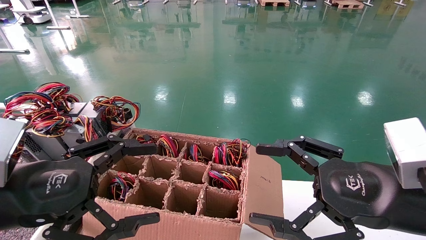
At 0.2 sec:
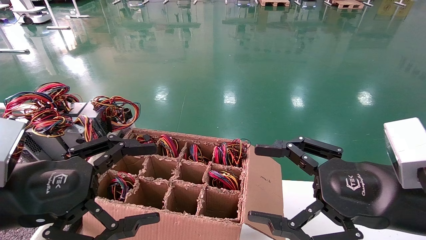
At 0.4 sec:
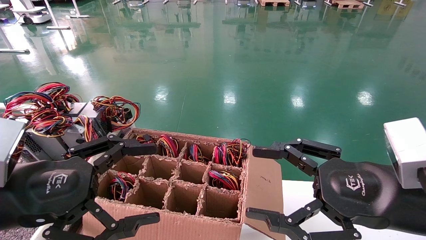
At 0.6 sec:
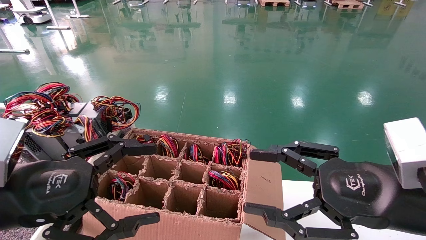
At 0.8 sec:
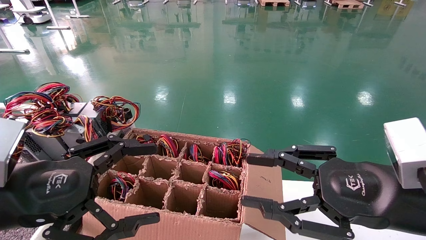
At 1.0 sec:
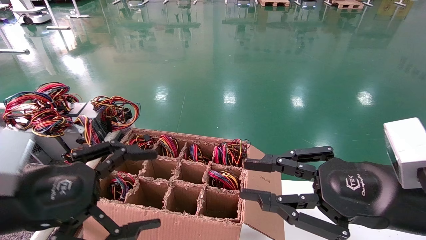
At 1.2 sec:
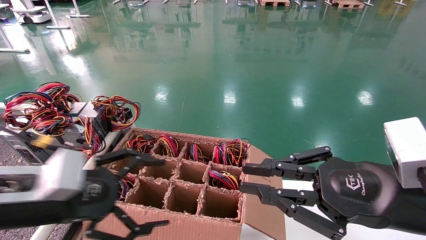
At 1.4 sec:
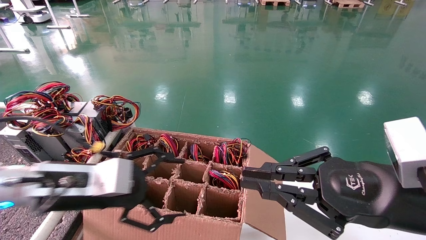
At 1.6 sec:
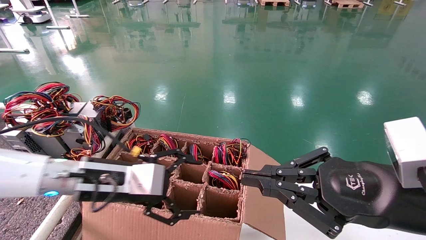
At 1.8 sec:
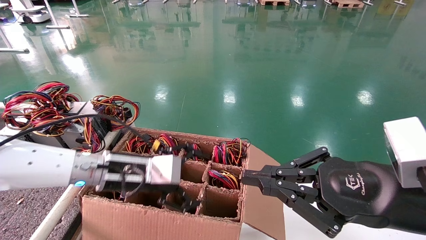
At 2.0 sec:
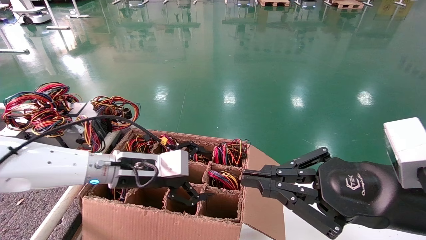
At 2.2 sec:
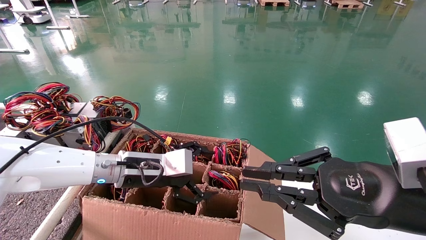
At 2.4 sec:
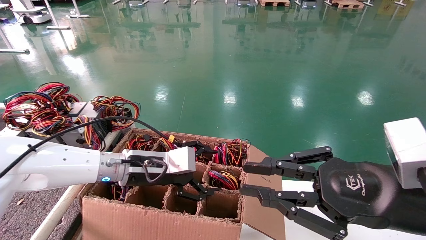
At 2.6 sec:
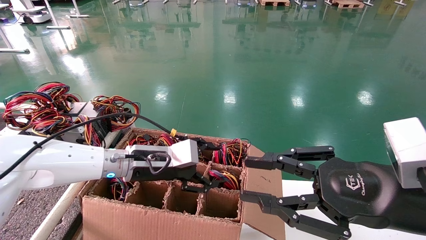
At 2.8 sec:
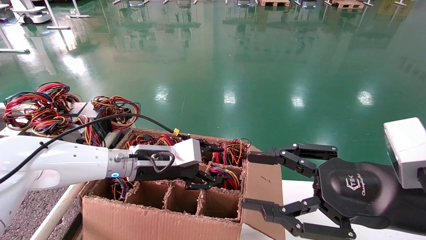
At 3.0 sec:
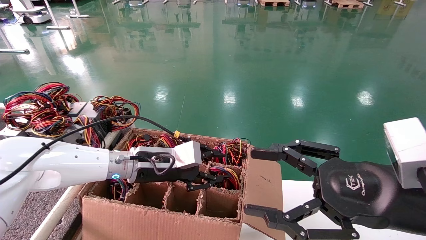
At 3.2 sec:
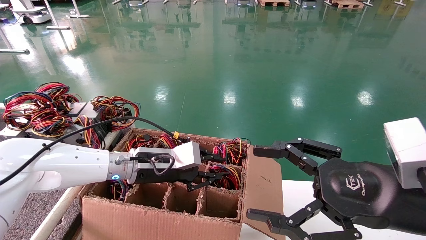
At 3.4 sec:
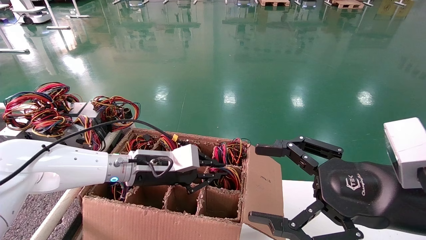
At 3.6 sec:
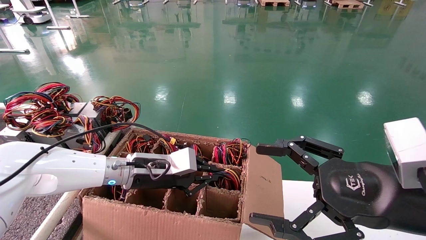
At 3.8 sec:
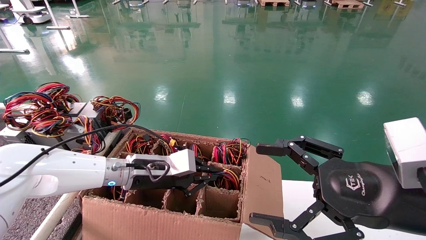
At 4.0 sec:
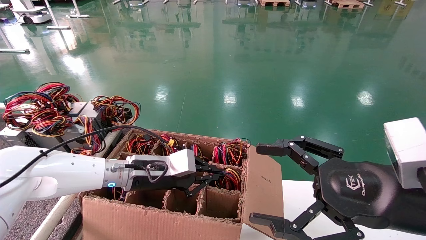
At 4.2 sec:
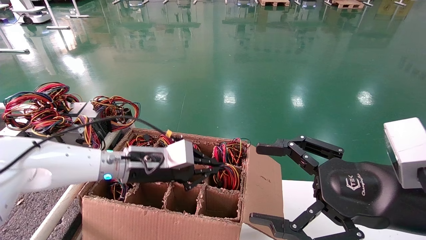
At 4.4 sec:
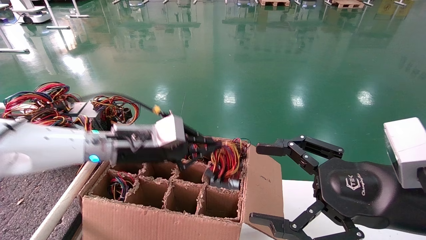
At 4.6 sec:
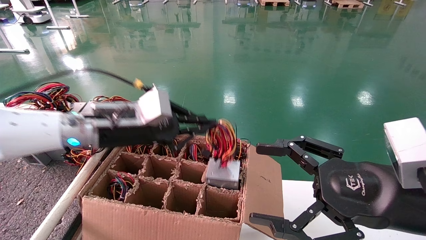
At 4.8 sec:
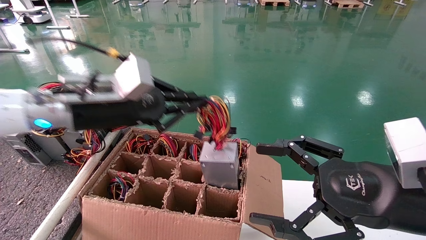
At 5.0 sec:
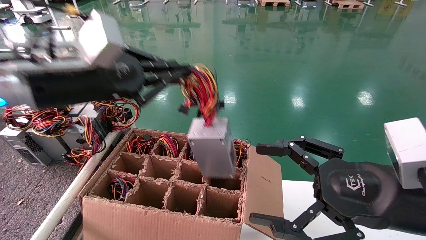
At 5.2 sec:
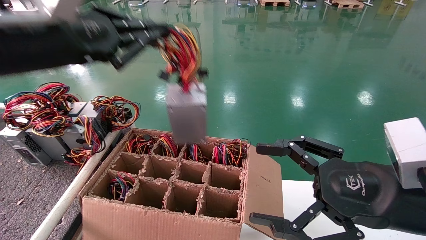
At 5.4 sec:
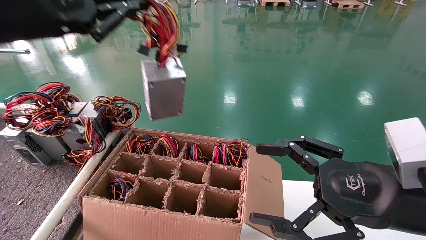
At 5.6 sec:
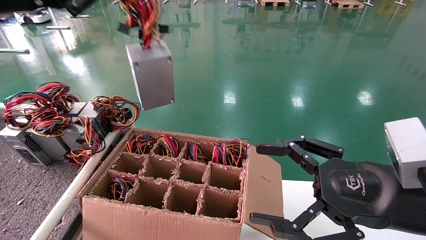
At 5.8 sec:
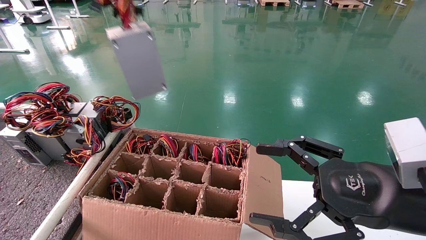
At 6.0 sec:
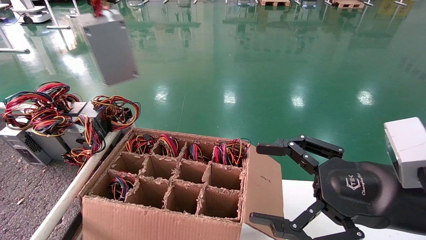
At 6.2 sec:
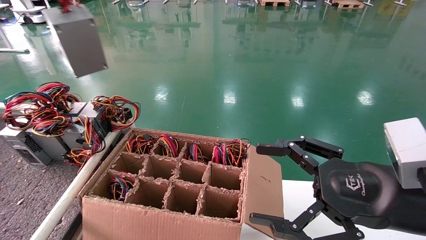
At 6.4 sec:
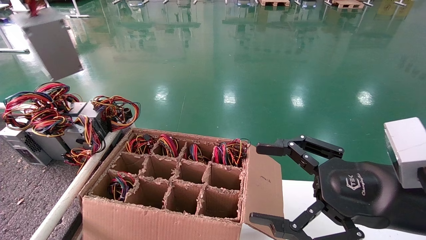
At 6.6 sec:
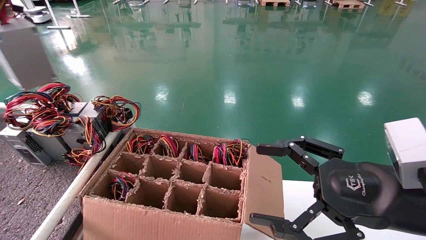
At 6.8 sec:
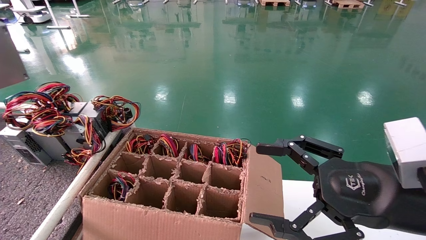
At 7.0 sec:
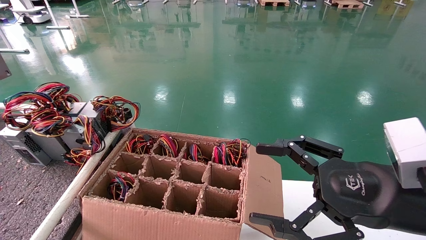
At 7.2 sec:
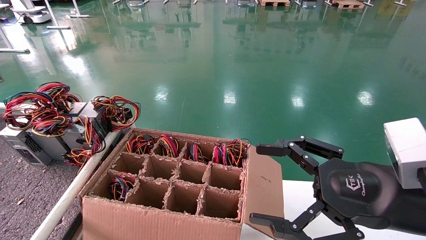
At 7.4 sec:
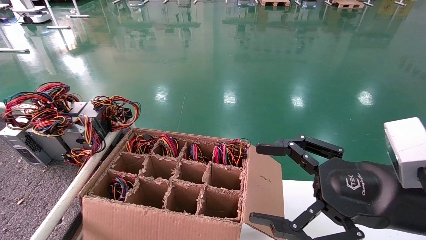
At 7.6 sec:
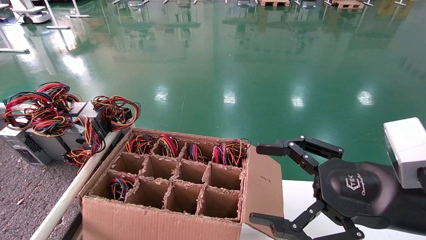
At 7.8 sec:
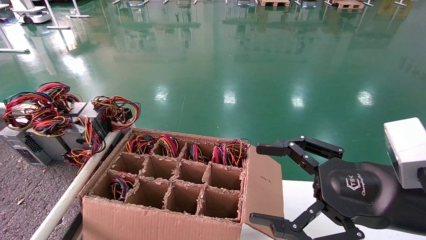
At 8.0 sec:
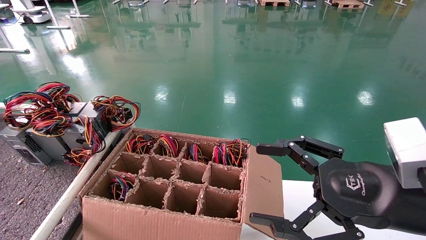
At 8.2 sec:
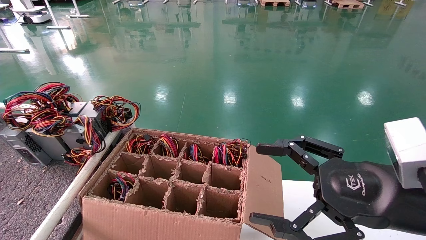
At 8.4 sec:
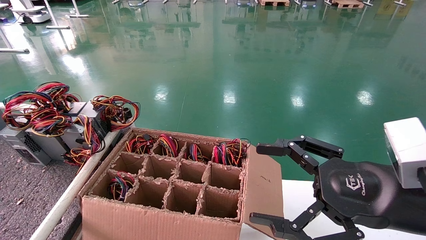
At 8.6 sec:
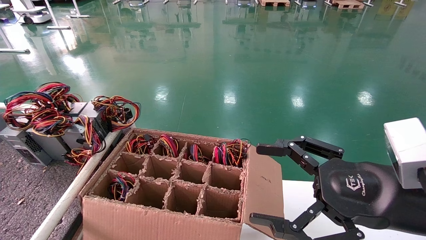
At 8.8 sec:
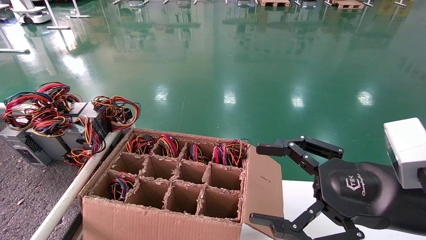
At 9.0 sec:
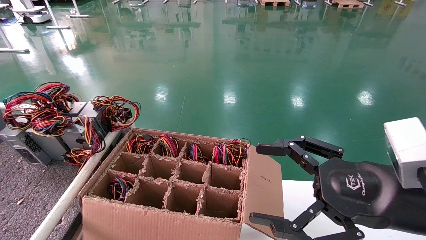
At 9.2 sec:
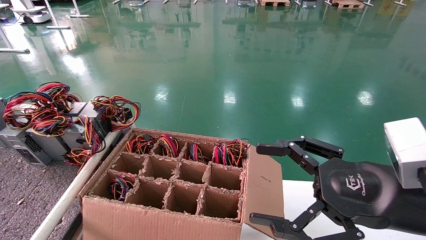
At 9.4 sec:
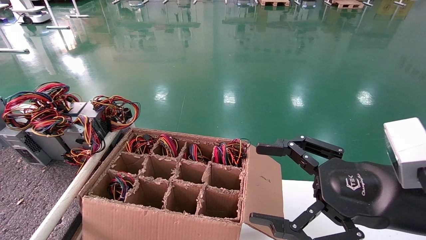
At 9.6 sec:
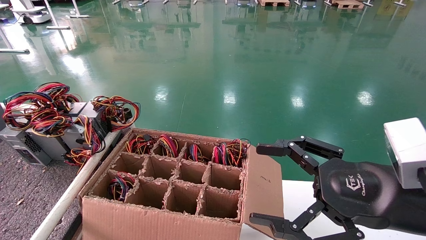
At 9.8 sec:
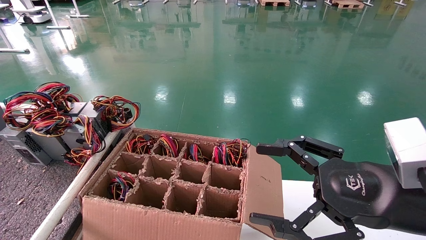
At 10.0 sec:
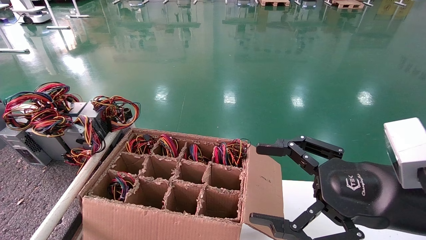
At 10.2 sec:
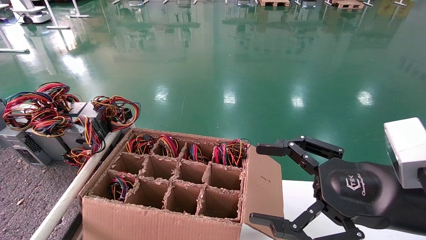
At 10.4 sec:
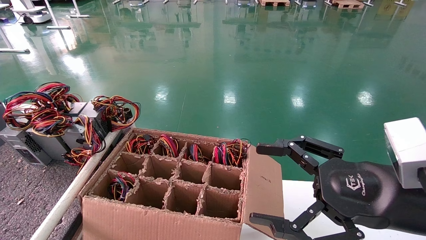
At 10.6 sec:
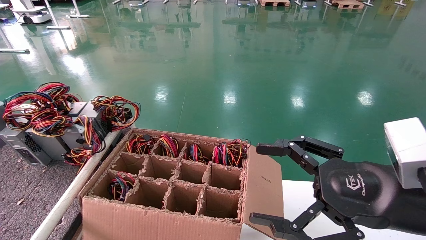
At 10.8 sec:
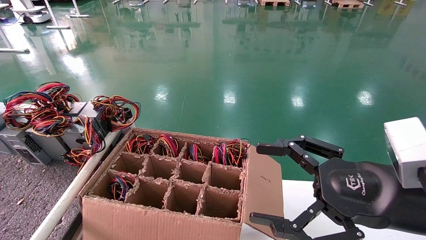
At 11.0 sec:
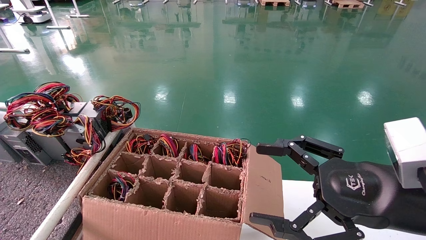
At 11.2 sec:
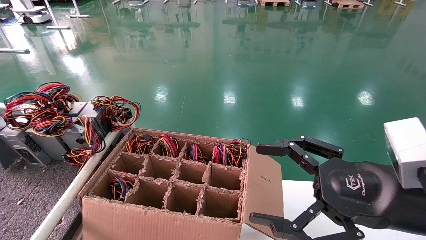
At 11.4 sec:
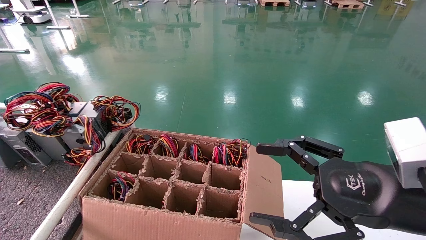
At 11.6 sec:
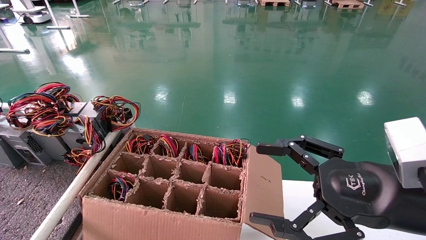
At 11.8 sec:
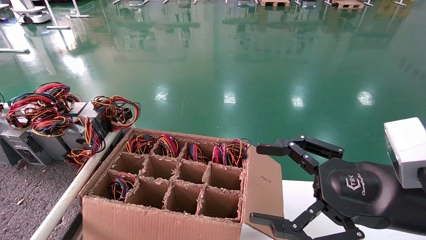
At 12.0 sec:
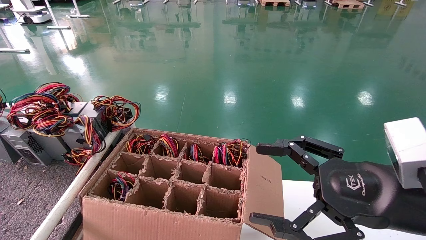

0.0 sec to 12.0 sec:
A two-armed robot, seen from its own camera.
Step, 1.4 sec to 3.8 sec: Grab and lift the power supply from the large box.
0.0 sec to 1.6 sec: The right gripper closes its fingers. The left gripper is displaced forward and to the right by roughly 15 cm.
1.6 sec to 3.0 sec: The right gripper opens up; the left gripper moves forward and to the right, approximately 10 cm, and closes.
3.0 sec to 4.4 sec: The right gripper opens up. The left gripper goes approximately 5 cm upward, and closes.
4.4 sec to 6.0 sec: The left gripper shifts roughly 35 cm upward, to the left and backward.
6.0 sec to 7.6 sec: The left gripper shifts some 25 cm to the left.
9.0 sec to 10.4 sec: Both grippers stay put.
10.4 sec to 12.0 sec: The grippers move only a little.

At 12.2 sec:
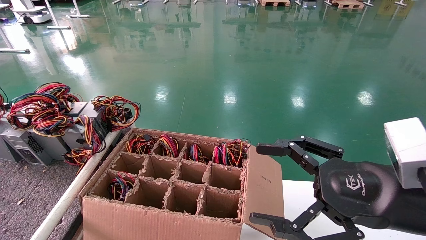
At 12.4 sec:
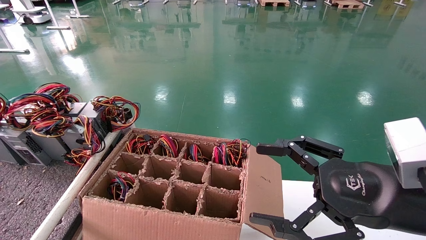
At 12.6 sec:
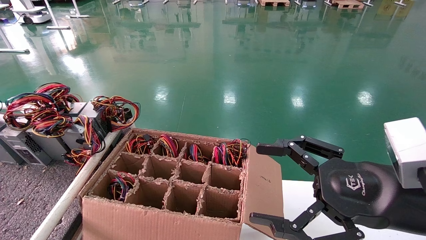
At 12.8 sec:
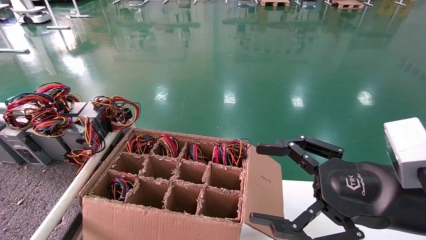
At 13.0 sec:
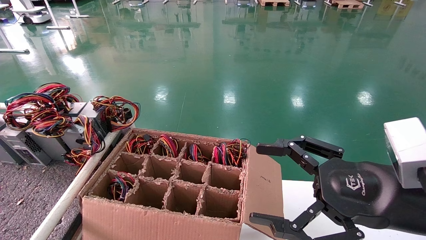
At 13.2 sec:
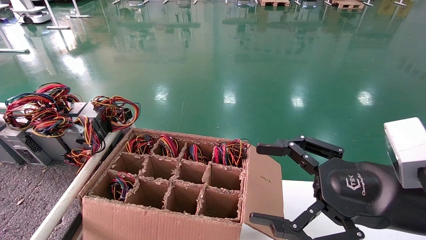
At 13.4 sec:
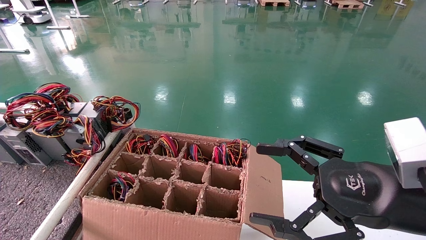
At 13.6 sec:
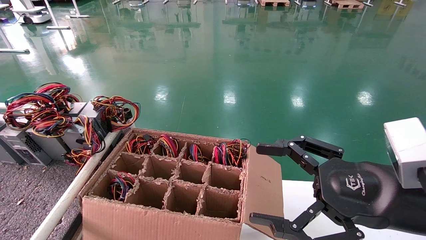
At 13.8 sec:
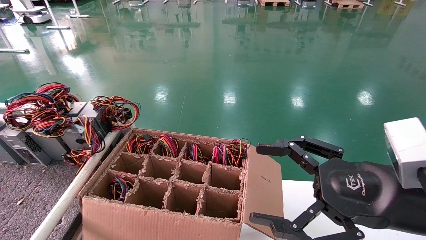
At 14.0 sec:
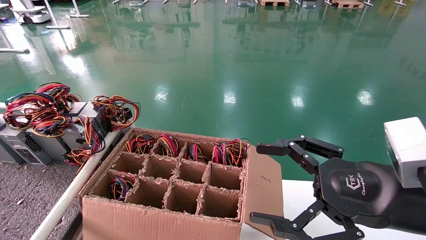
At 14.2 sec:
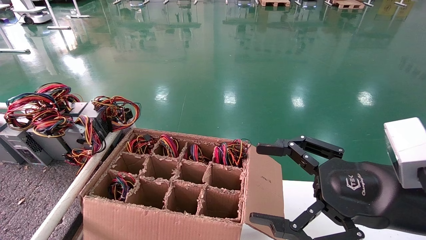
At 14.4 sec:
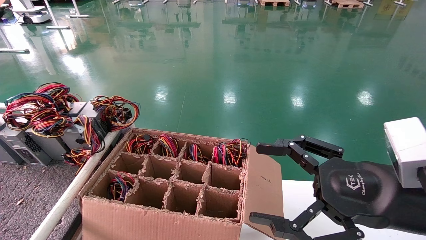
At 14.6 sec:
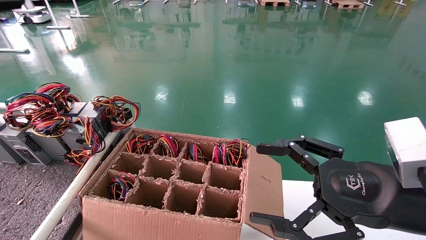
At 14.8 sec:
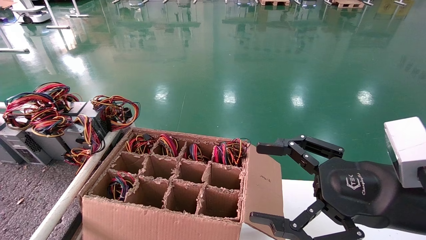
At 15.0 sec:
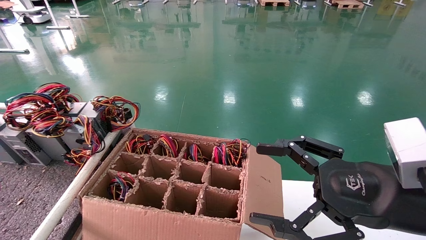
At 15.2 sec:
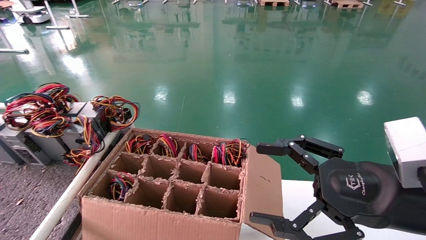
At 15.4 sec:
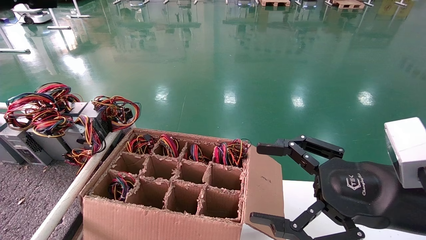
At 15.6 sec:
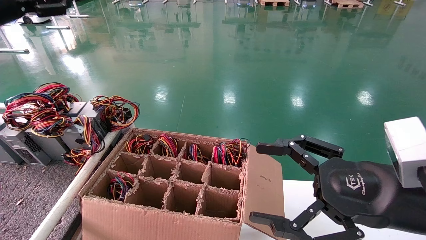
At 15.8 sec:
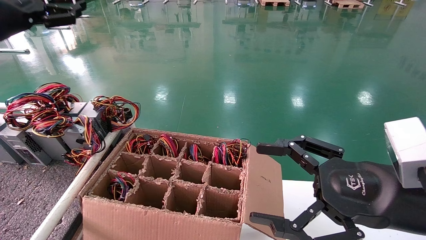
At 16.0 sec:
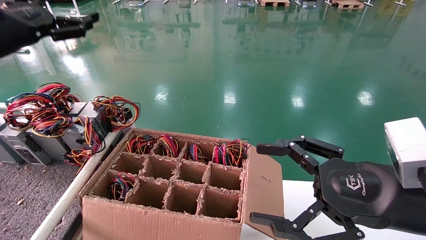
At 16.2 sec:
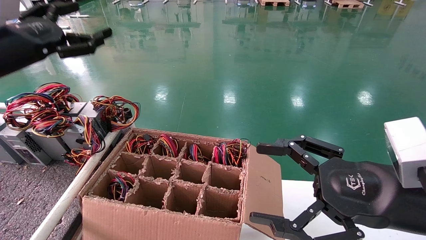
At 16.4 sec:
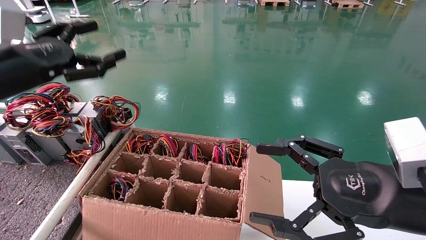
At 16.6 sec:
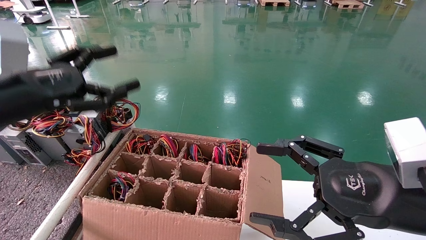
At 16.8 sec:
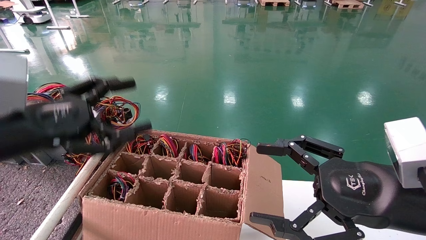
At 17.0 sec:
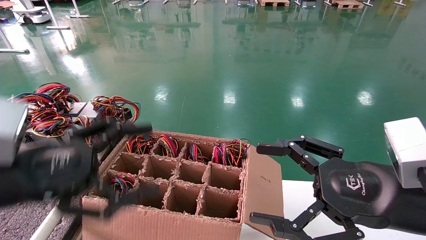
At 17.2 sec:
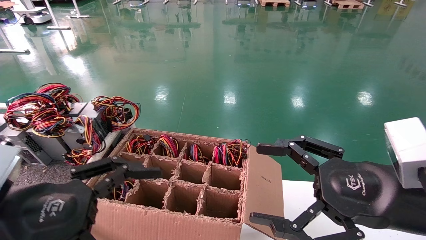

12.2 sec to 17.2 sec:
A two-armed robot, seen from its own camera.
12.2 sec to 13.8 sec: The grippers stay close to where they were, moving slightly.
13.8 sec to 15.6 sec: The left gripper moves to the right, upward and forward, some 20 cm, and opens.
15.6 sec to 17.2 sec: The left gripper moves downward, backward and to the right, roughly 30 cm.
